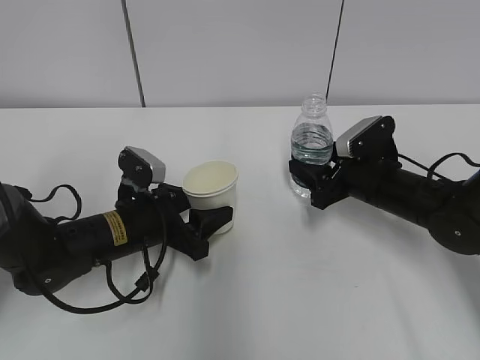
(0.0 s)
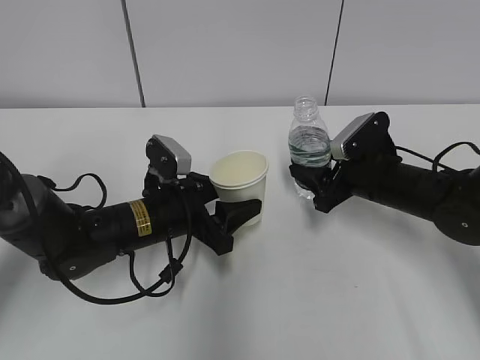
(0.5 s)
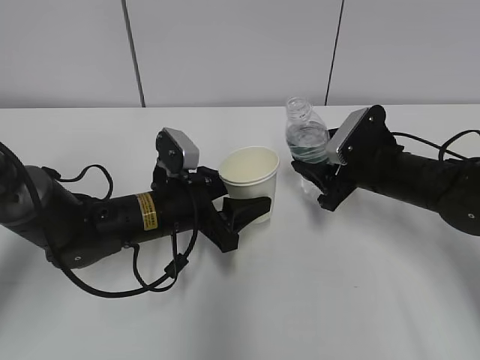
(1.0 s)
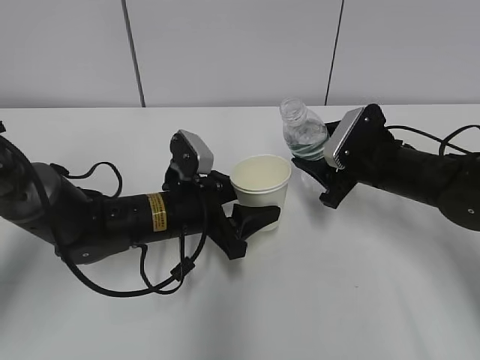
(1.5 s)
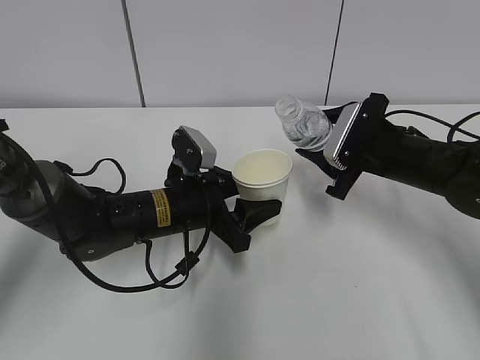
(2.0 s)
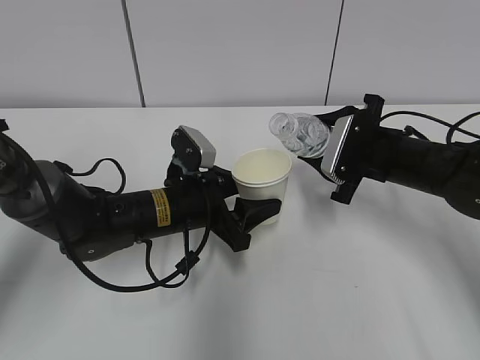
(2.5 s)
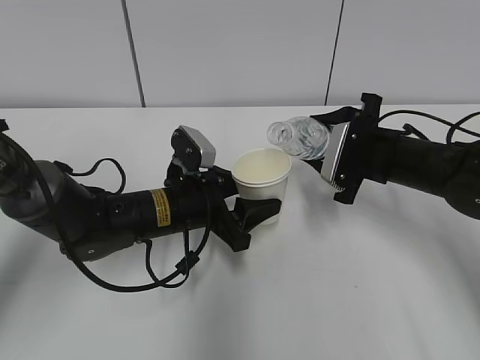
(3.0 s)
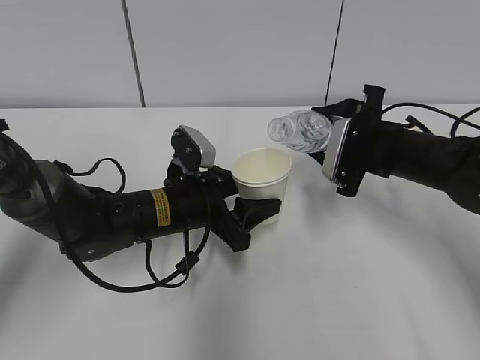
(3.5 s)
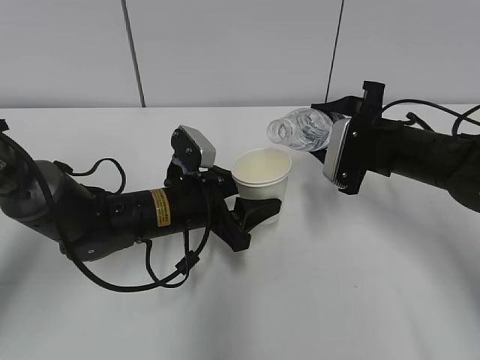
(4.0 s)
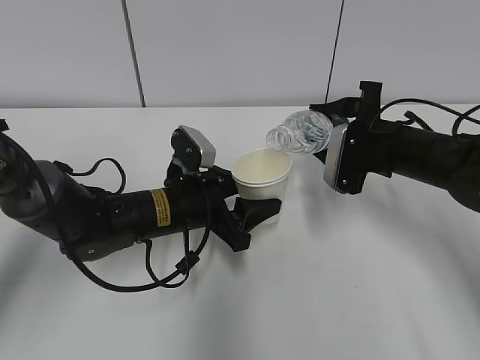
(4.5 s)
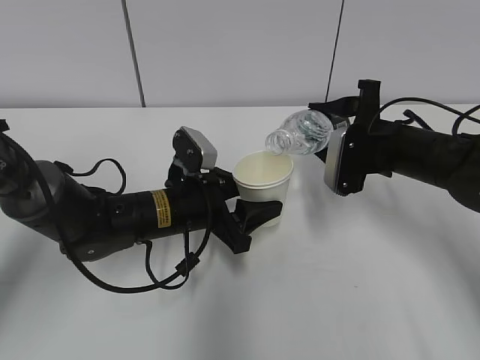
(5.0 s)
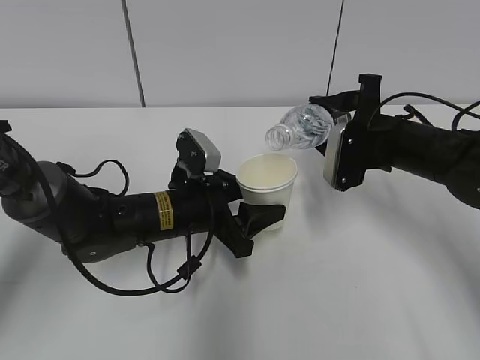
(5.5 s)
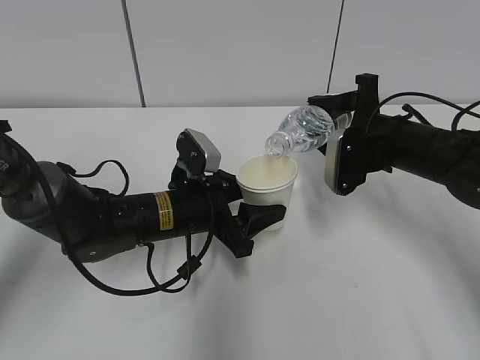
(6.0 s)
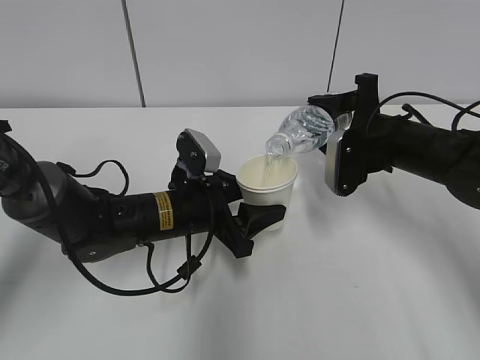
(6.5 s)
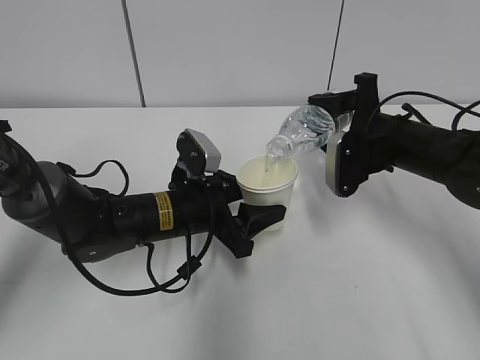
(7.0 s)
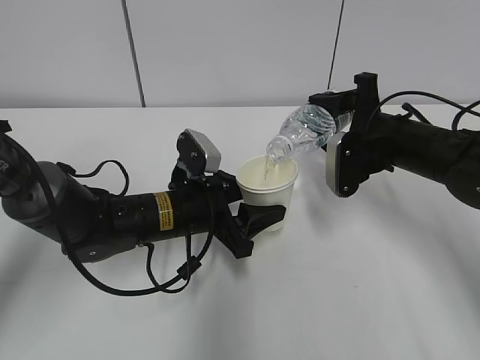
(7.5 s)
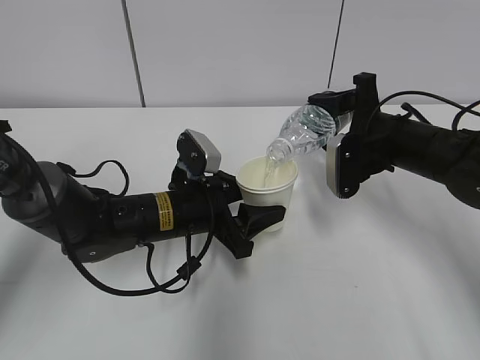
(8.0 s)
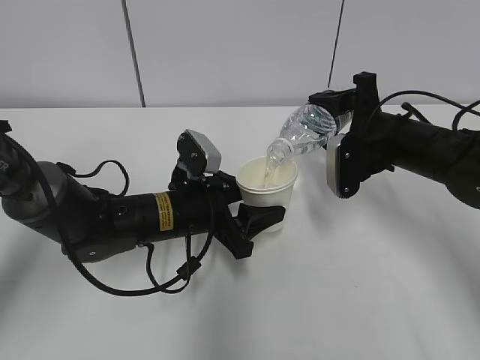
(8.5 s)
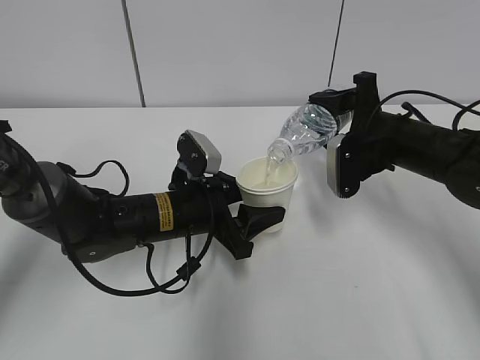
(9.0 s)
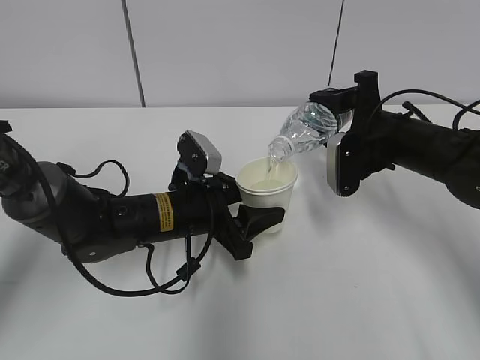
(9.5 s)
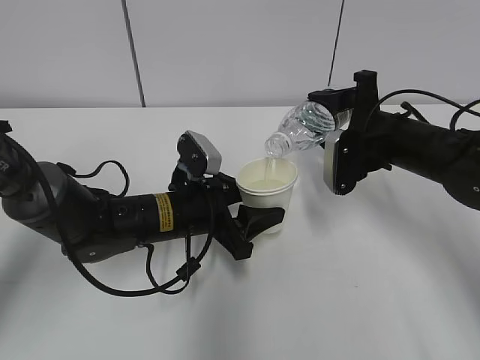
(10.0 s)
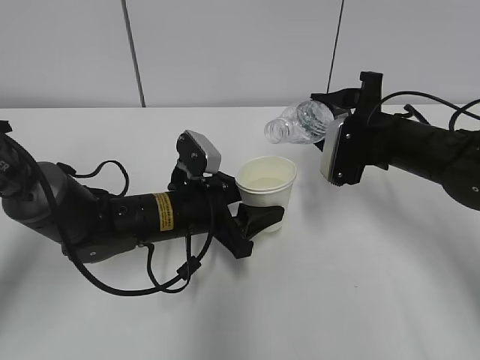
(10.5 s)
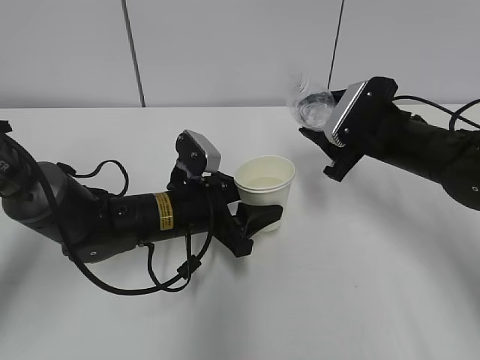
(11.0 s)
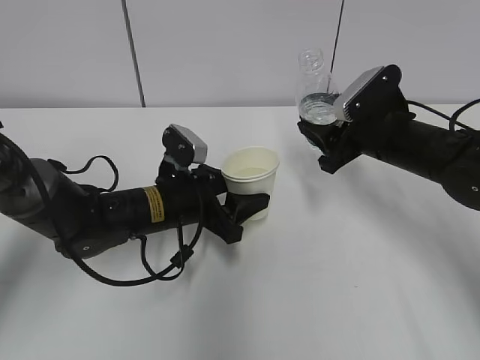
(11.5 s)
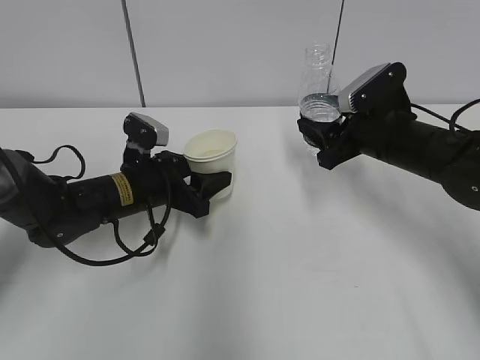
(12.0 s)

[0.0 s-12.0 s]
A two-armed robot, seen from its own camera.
Step, 0.0 to 2.0 s: Lift the paper cup with the left hand.
Step, 2.5 to 5.5 s: Fill water with the left hand.
Step, 2.5 to 5.5 s: Pour water with the right hand.
Step, 9.0 to 10.5 s: Place the water bottle with the right hand.
0.0 to 2.0 s: The right gripper moves upward, roughly 5 cm; the left gripper moves to the right, some 5 cm.
4.0 to 6.0 s: The grippers stay close to where they were, moving slightly.
6.0 to 8.0 s: There are only small adjustments of the grippers.
8.0 to 10.0 s: The two grippers keep their place.
10.0 to 12.0 s: The left gripper travels to the left by roughly 5 cm.

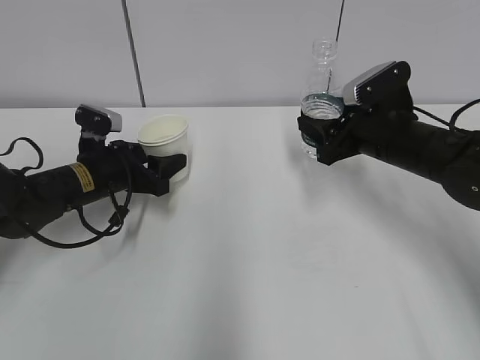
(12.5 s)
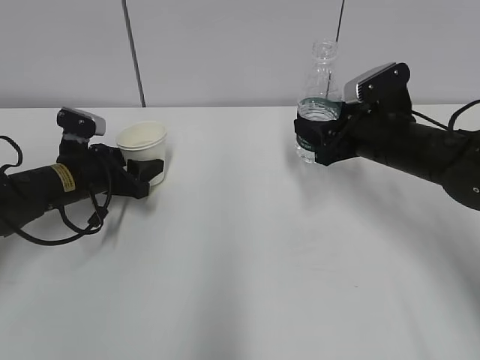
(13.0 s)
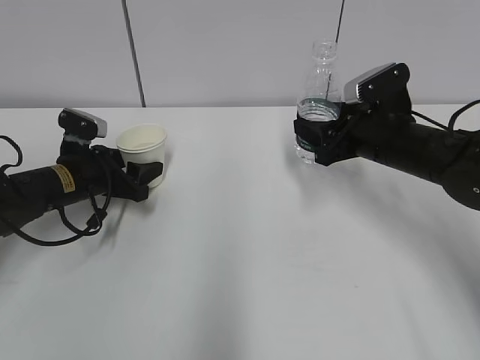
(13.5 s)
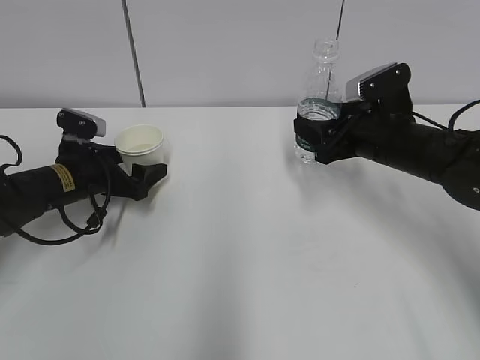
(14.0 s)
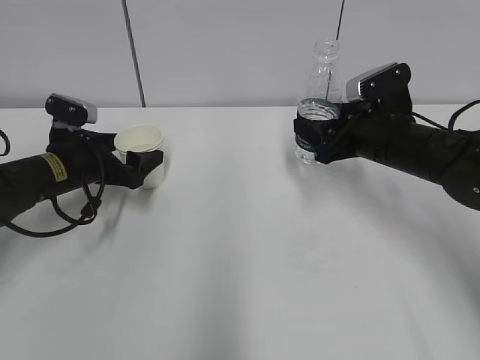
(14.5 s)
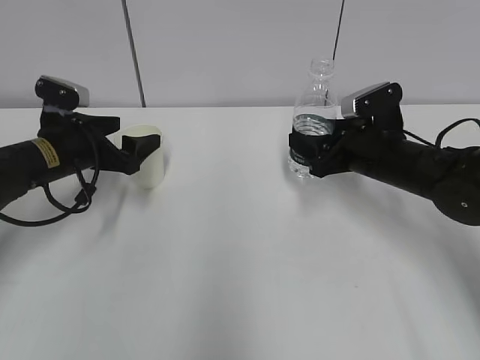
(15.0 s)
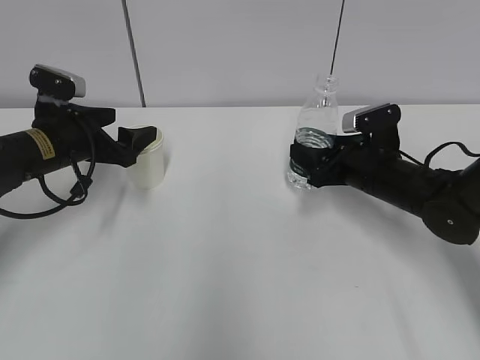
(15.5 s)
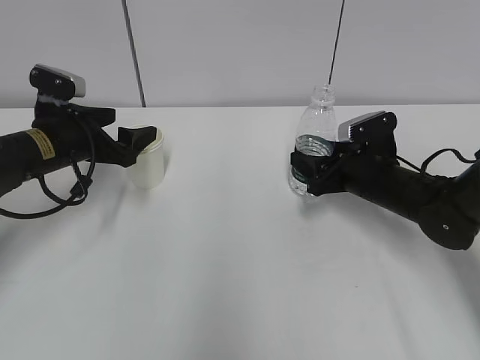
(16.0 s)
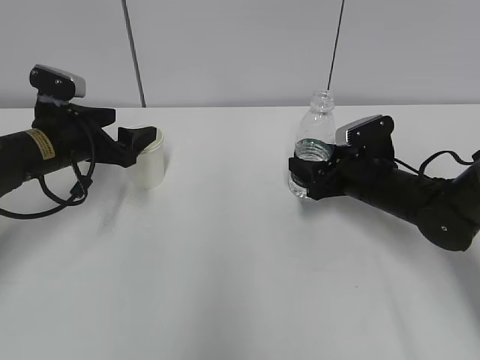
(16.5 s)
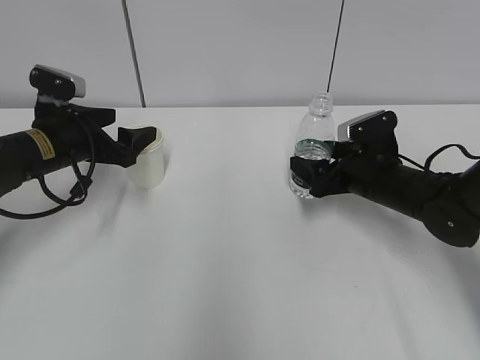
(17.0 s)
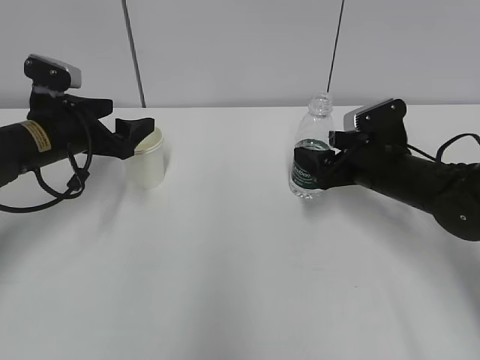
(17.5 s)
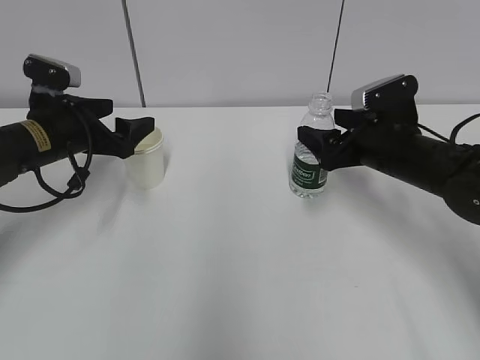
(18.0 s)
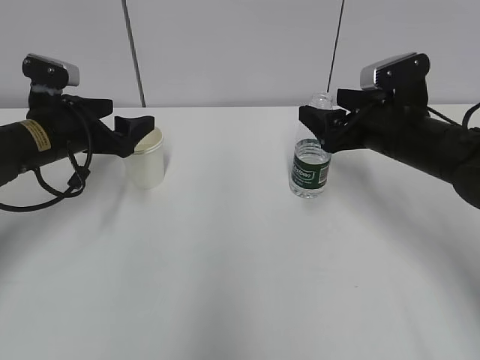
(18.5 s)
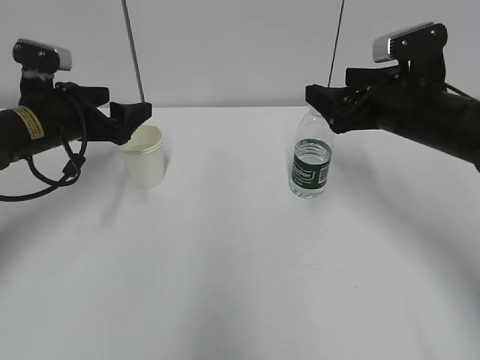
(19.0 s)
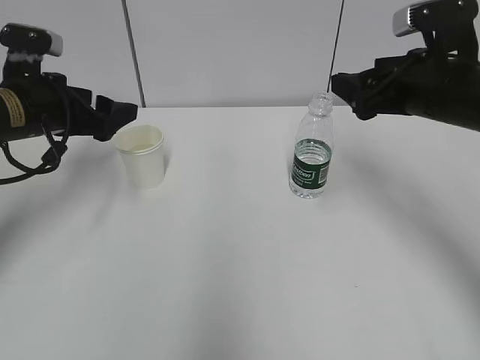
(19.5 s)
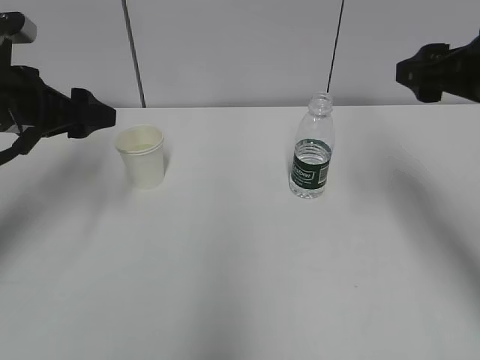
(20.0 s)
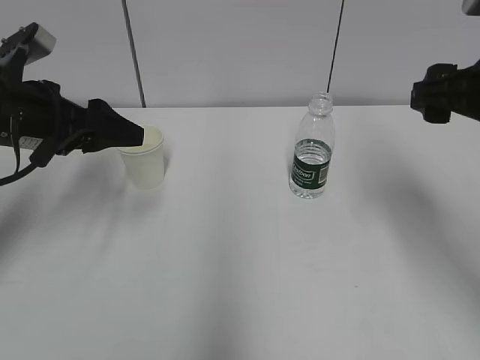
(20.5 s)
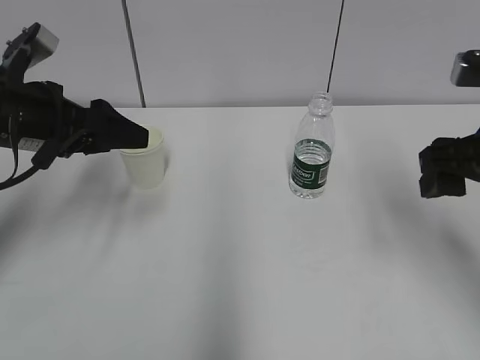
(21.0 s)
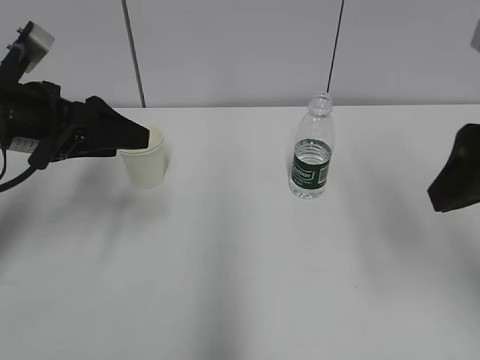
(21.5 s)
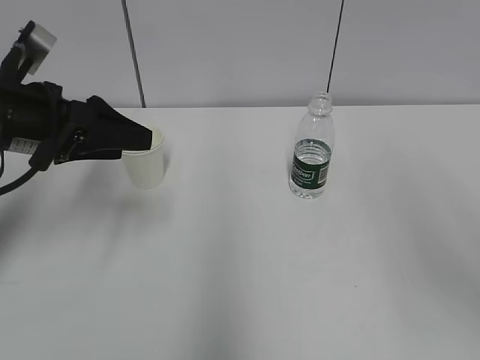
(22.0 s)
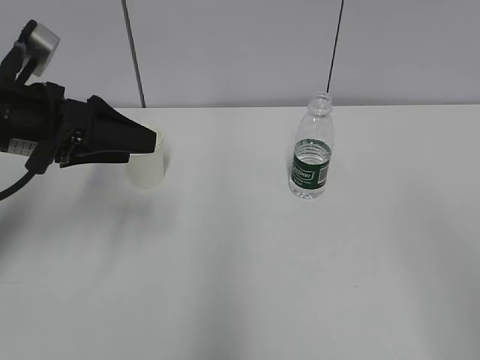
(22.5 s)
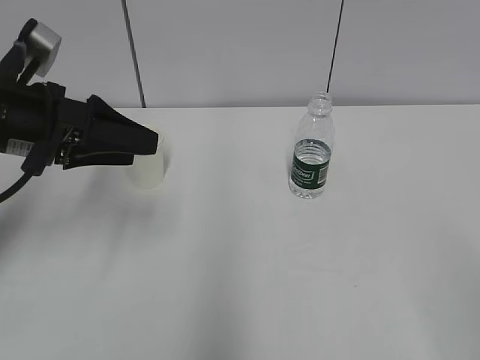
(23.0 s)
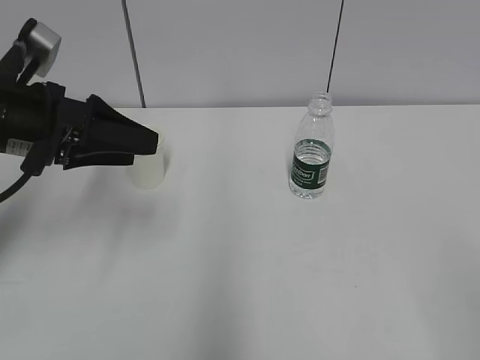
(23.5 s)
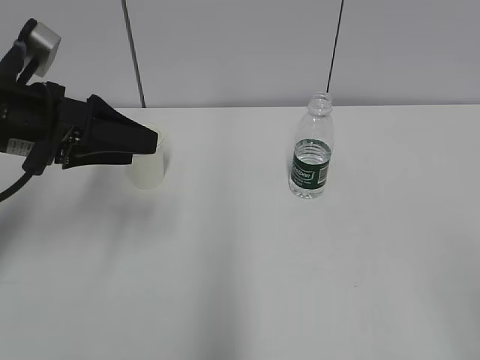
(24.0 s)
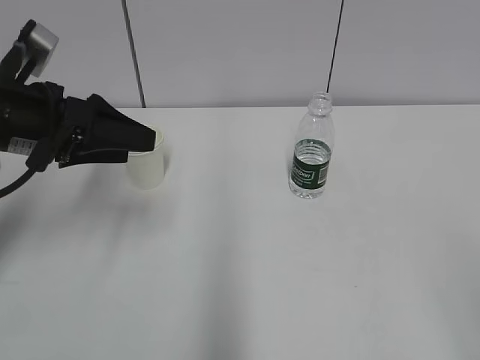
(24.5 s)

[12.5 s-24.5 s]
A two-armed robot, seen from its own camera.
12.5 to 14.5 s: The left gripper opens up.
14.5 to 16.5 s: The right gripper travels downward by roughly 10 cm, and opens.
16.5 to 18.5 s: The right gripper shifts roughly 10 cm upward, and opens.
18.5 to 20.5 s: Both grippers travel together upward and backward, some 10 cm.
20.5 to 22.5 s: The right gripper goes some 25 cm backward.

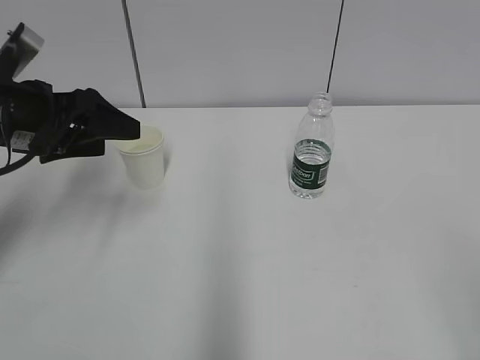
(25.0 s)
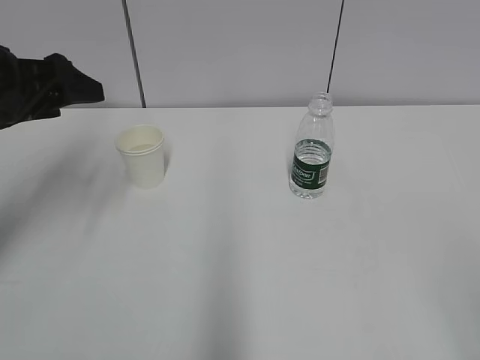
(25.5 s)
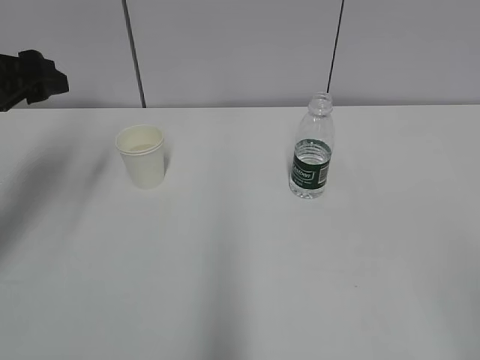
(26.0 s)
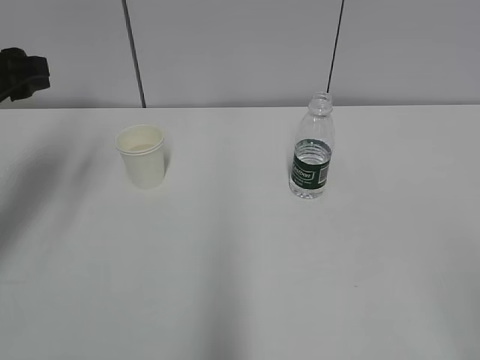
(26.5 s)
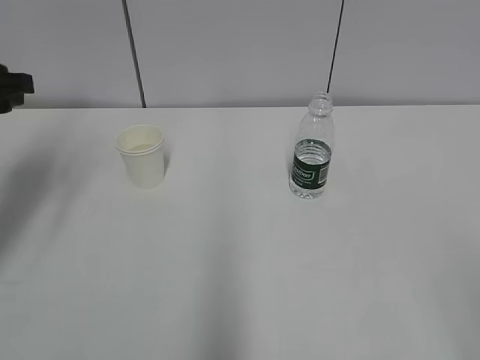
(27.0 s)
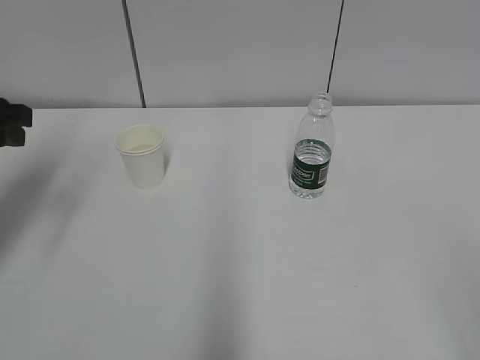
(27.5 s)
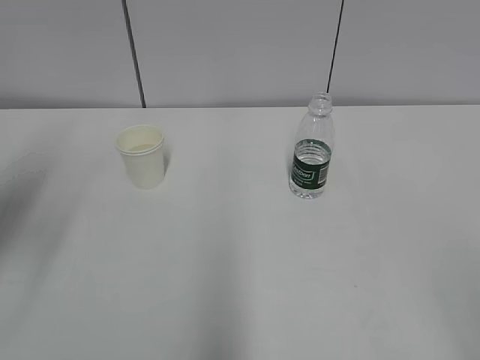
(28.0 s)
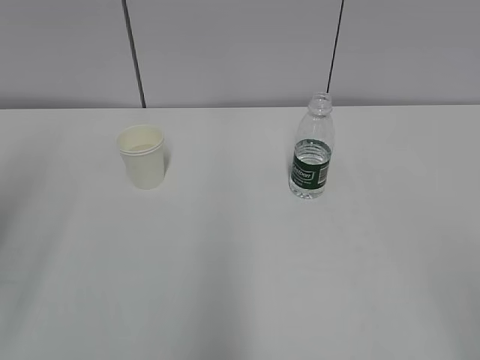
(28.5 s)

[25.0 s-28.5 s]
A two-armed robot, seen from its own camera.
25.0 to 27.0 s: The left gripper heads to the left, covering roughly 5 cm.
27.0 to 28.5 s: The left gripper is displaced backward and upward by some 15 cm.
